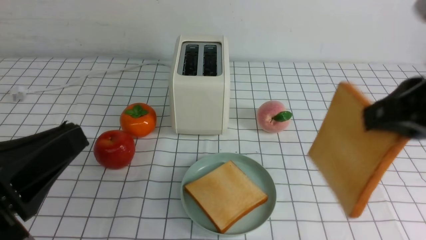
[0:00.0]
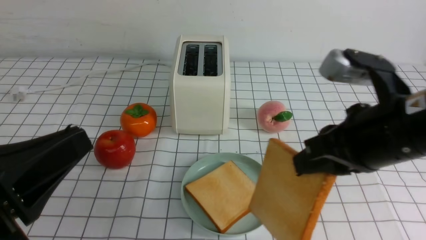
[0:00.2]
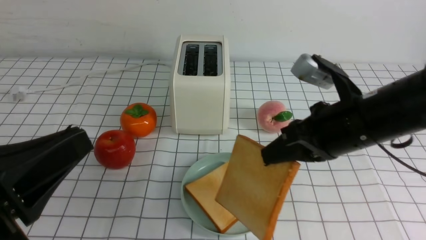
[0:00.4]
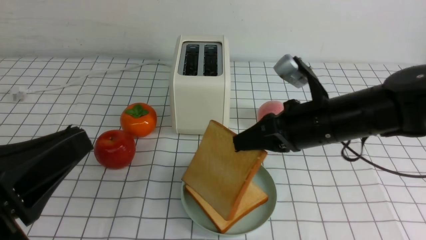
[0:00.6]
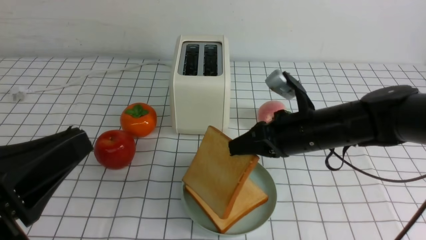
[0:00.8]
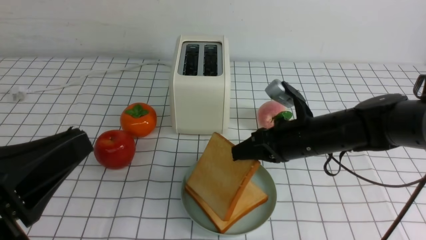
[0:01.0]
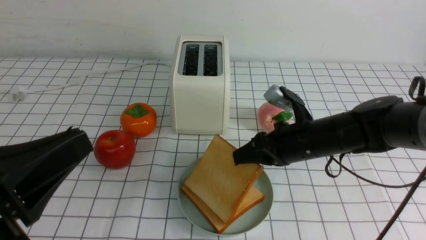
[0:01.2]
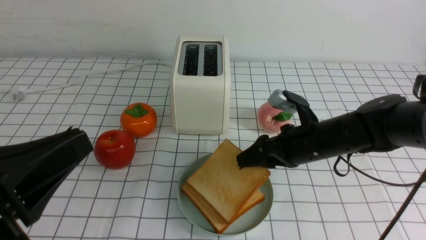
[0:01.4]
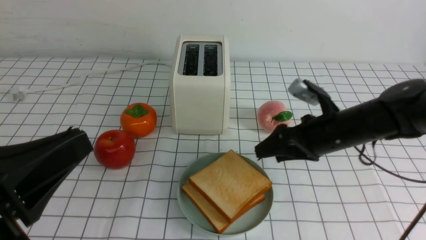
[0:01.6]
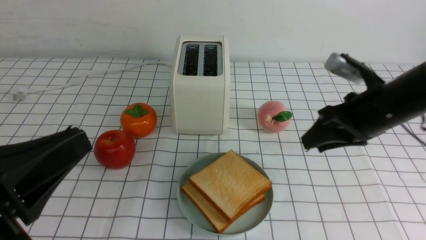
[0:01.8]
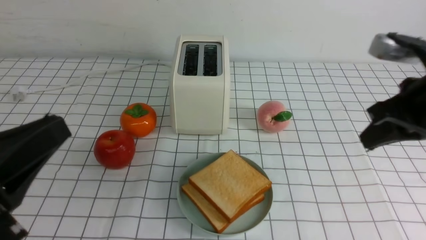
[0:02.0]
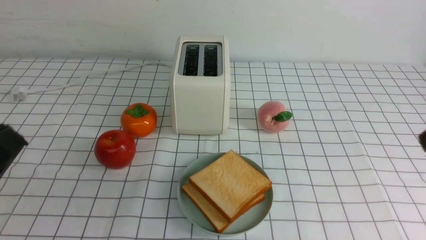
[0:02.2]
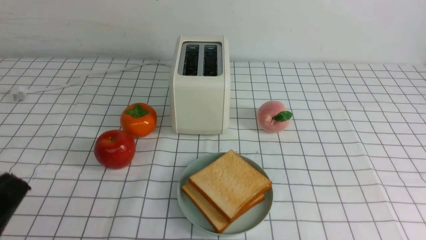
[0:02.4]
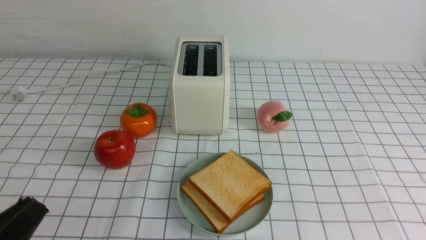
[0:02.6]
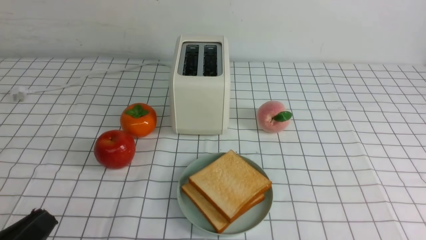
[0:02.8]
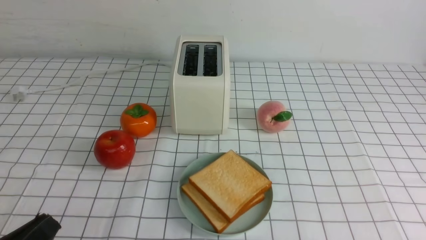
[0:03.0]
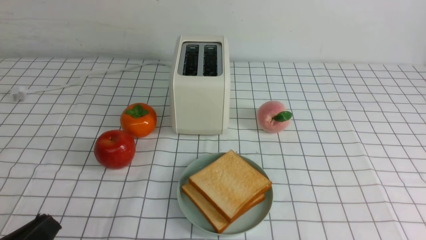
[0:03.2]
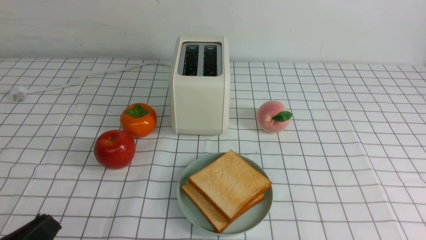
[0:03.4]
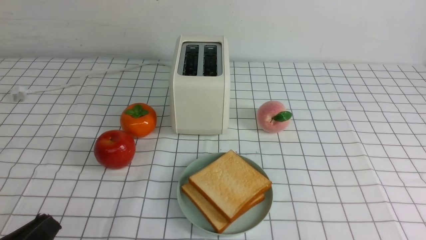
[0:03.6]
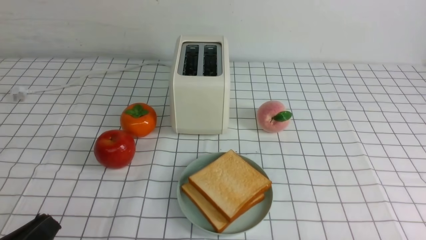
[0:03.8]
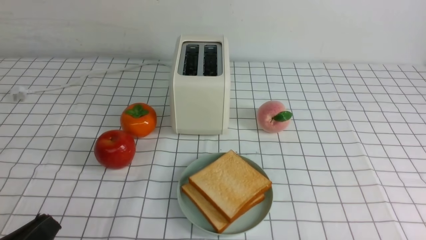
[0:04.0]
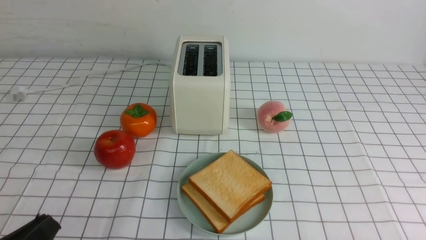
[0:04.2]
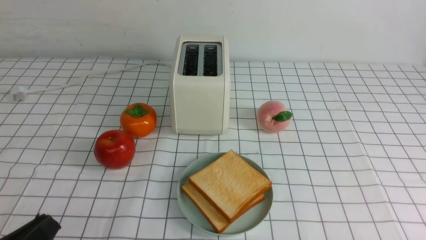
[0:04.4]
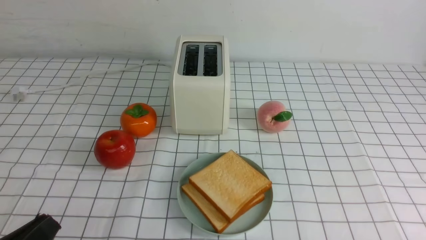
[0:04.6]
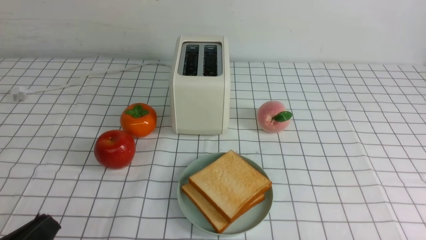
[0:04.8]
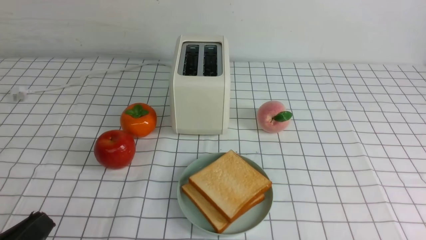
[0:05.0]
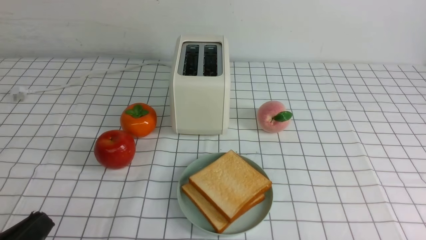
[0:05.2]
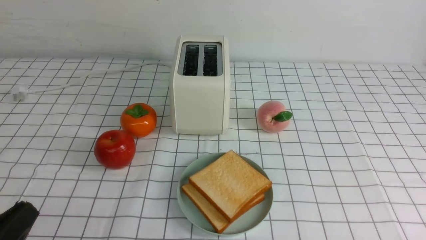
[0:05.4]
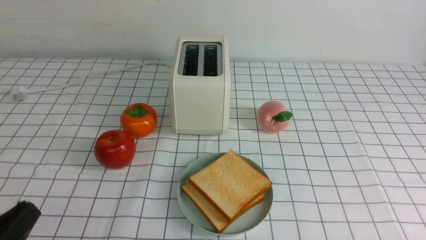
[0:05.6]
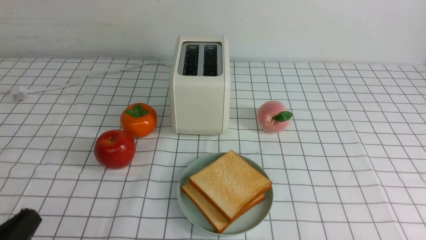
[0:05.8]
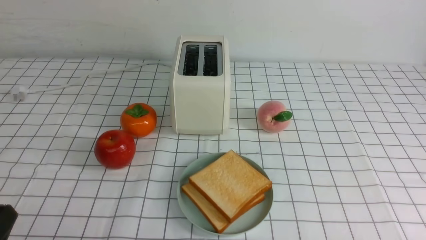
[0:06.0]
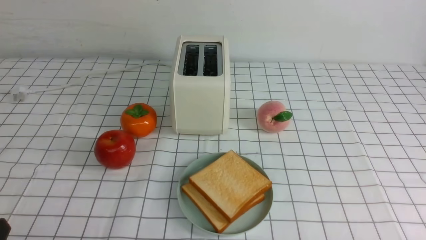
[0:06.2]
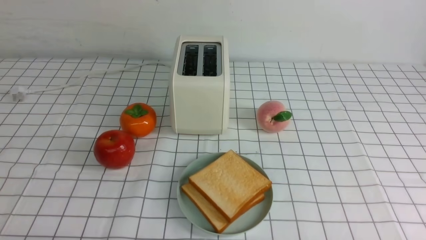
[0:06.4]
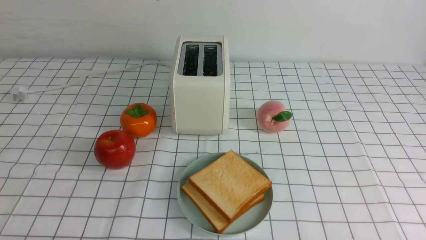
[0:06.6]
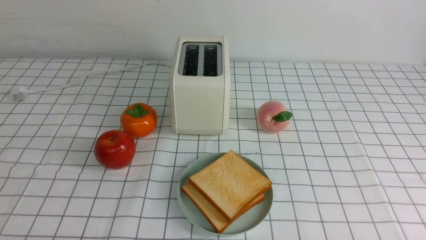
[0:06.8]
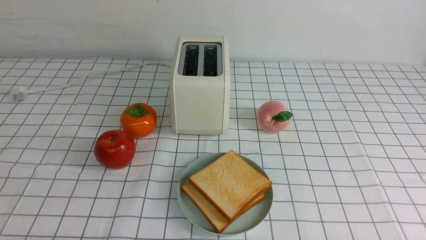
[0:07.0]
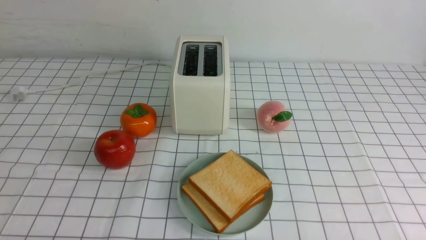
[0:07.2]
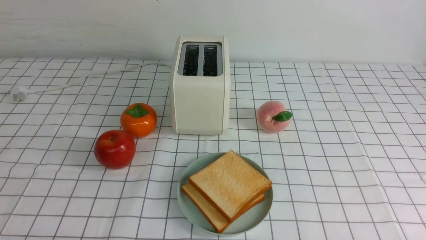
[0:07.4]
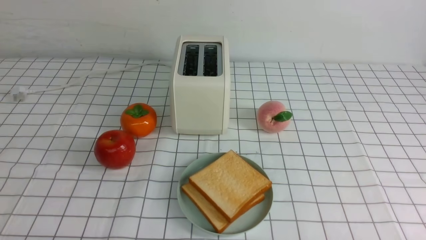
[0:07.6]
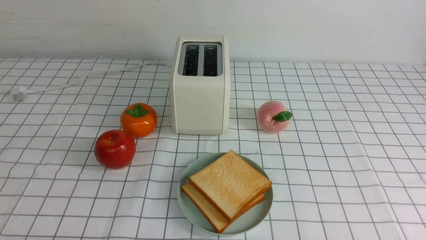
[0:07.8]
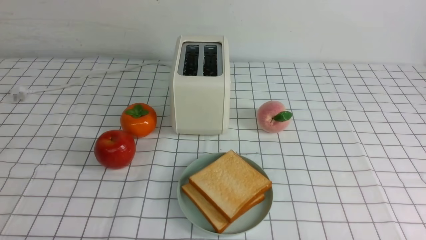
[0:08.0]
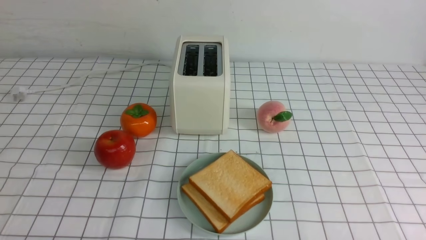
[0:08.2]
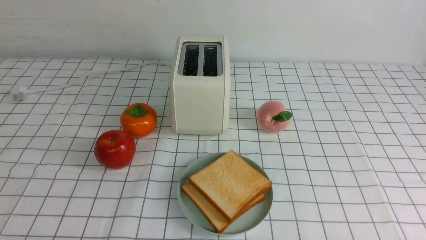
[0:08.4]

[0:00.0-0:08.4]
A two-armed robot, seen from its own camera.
Task of the whole recording: take toasted bread from bread machine on white checkered table place on plate.
Step, 0:00.0 to 0:01.6: use the right arm to put a slice of bread into the plate.
0:00.0 to 0:01.4: The right gripper is displaced downward and forward by approximately 25 cm, and opens its fingers.
0:01.4 to 0:02.8: The left gripper moves downward, roughly 10 cm. The right gripper moves backward, roughly 30 cm, and closes up.
0:04.2 to 0:05.6: There are only small adjustments of the grippers.
0:05.6 to 0:07.0: The left gripper heads downward, covering roughly 5 cm.
0:07.0 to 0:08.4: Both grippers stay put.
